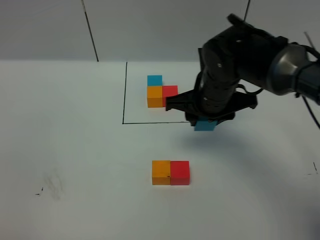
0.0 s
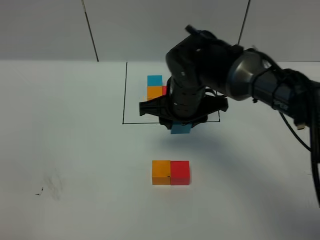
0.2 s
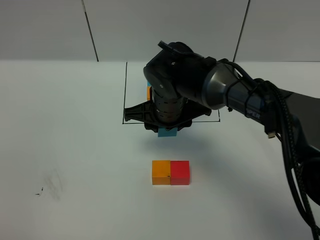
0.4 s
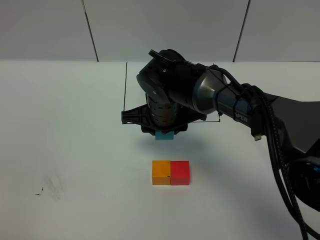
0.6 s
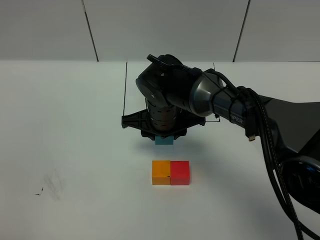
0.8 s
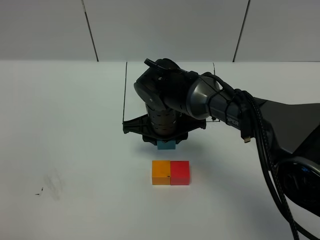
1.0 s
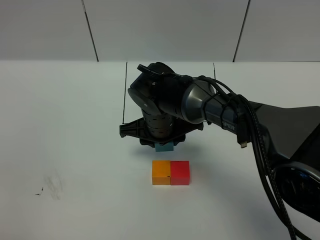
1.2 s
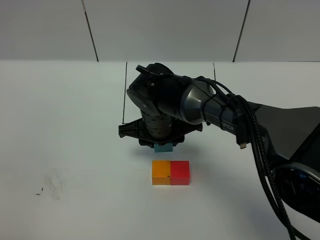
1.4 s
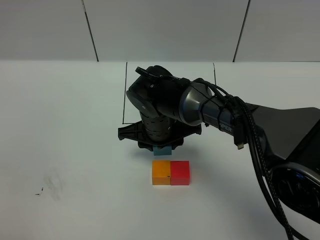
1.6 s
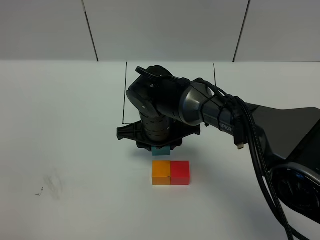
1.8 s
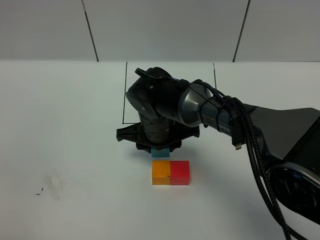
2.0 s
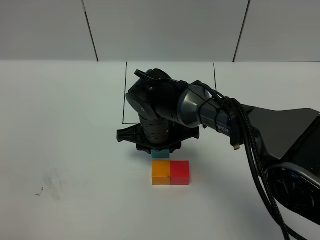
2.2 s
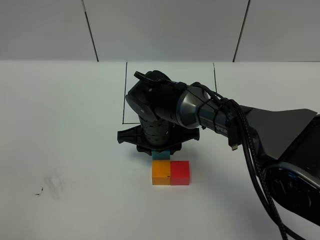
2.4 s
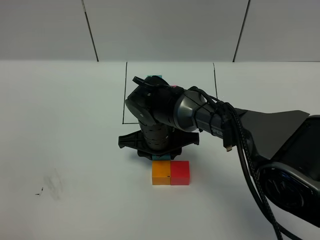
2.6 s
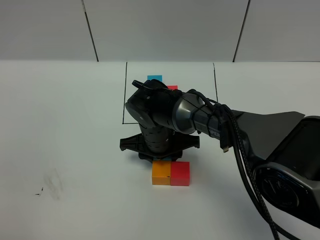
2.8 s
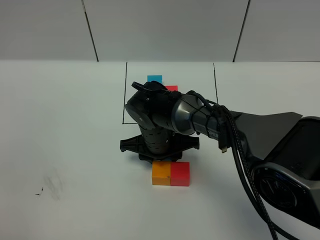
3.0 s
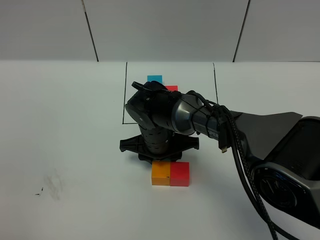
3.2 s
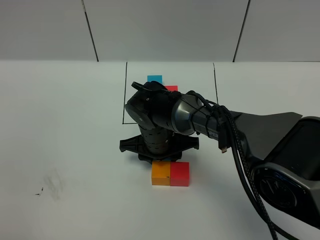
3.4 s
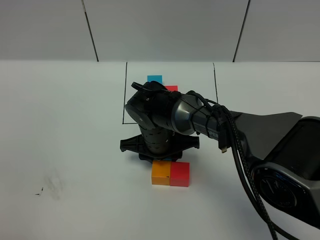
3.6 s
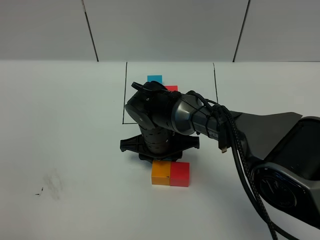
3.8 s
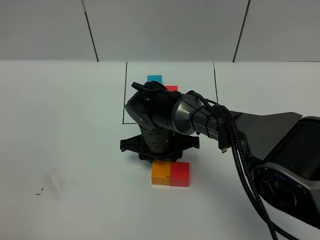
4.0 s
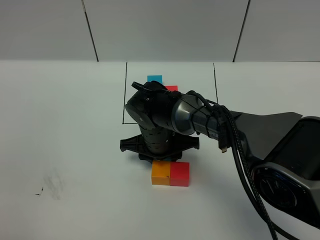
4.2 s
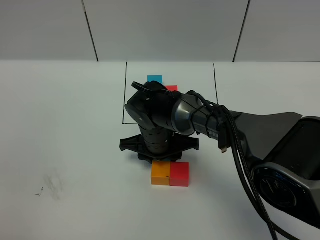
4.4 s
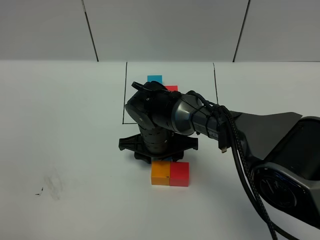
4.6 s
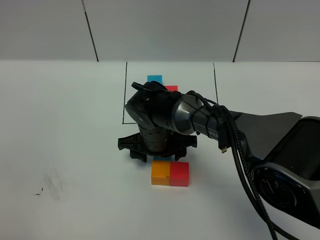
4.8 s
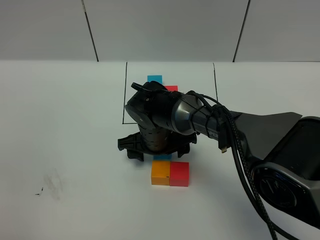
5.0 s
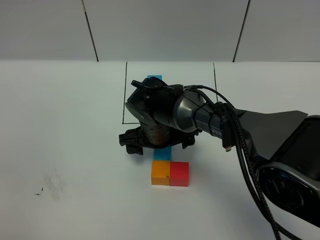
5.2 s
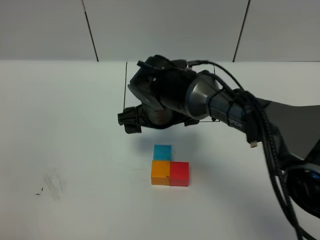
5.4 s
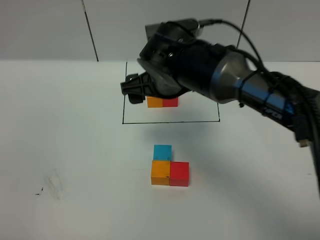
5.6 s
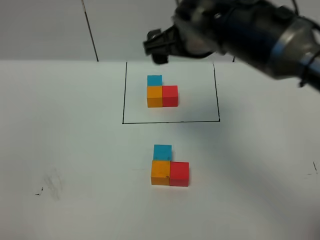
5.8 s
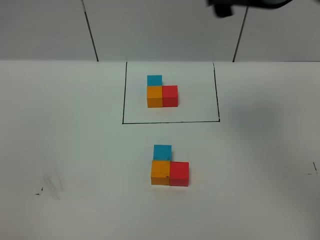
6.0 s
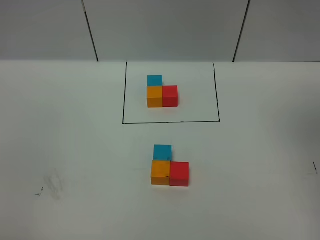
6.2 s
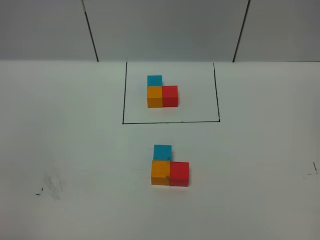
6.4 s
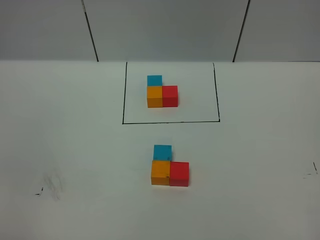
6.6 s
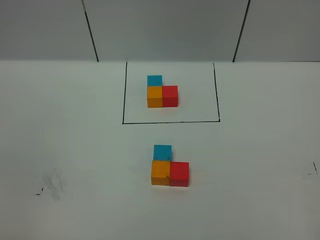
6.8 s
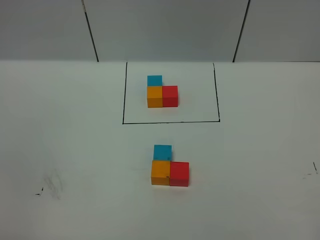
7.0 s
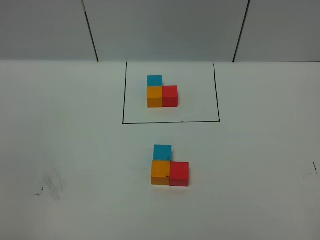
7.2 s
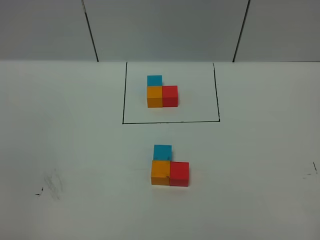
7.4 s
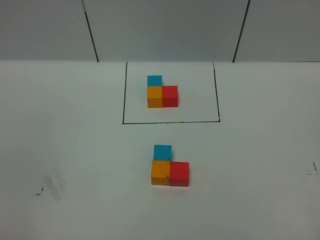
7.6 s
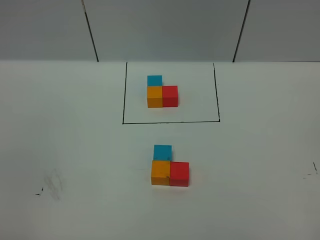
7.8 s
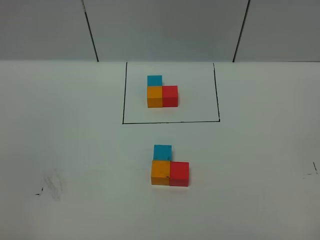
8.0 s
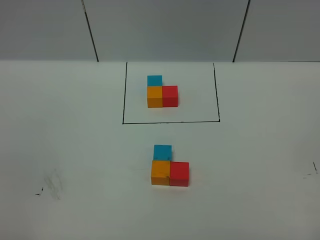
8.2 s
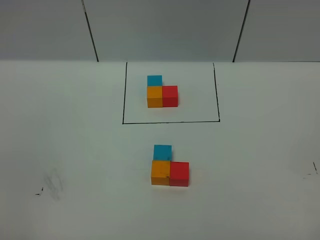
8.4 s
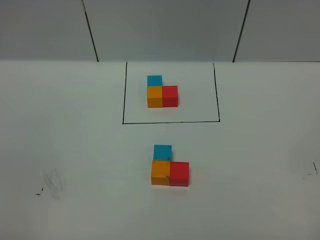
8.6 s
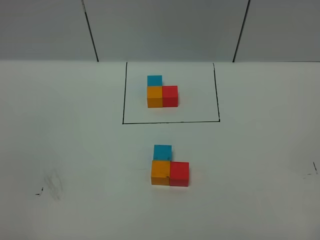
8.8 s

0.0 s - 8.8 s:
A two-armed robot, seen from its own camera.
Task of the whole recording: According to the building block template in front, assemble the scattered blocks together.
Step, 0.0 s - 4.6 s: Put the blue cube on the behind of the orange cube.
0.0 s - 1.4 s: The right gripper moves to the left and downward, roughly 10 cm.
1.4 s - 3.0 s: The grippers make only small movements.
3.0 s - 4.4 s: Both grippers stay put.
4.4 s - 5.8 s: The right gripper goes approximately 25 cm upward, and opens.
5.8 s - 7.4 s: The right gripper is displaced backward and to the right by roughly 50 cm.
